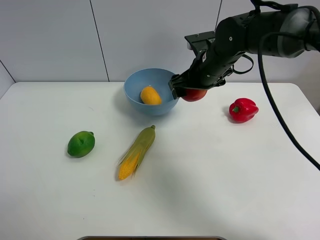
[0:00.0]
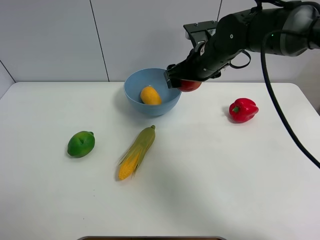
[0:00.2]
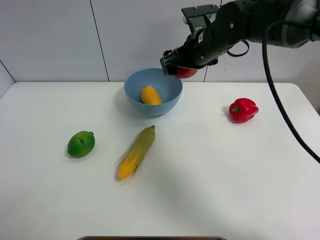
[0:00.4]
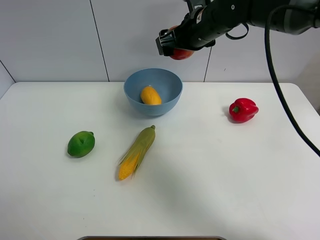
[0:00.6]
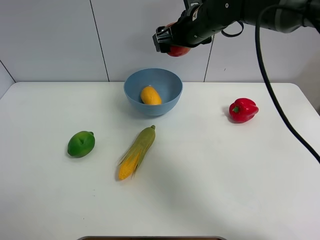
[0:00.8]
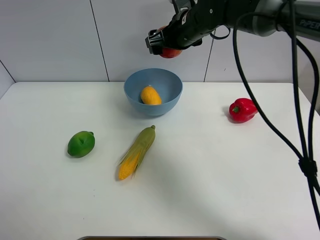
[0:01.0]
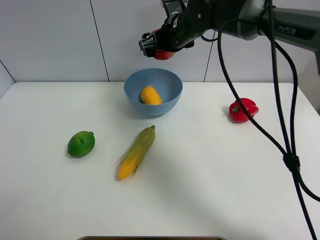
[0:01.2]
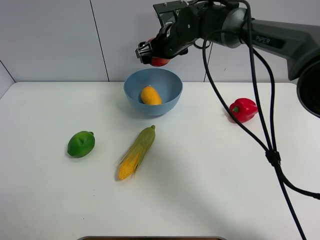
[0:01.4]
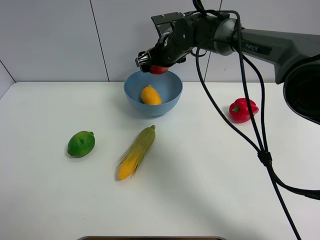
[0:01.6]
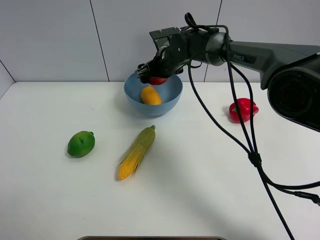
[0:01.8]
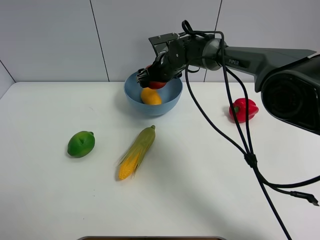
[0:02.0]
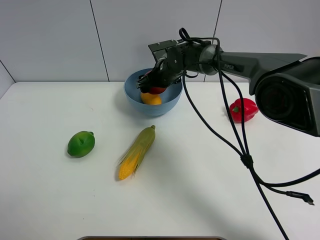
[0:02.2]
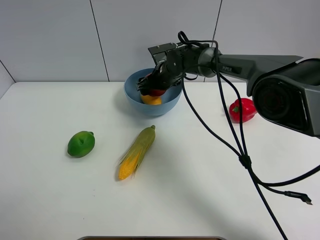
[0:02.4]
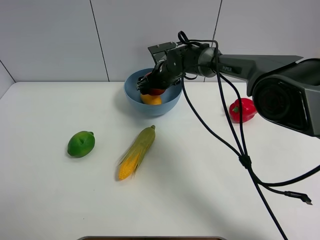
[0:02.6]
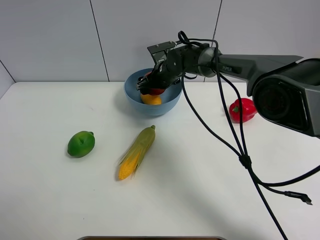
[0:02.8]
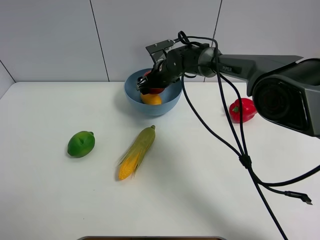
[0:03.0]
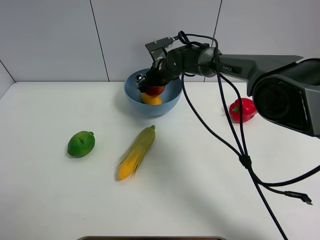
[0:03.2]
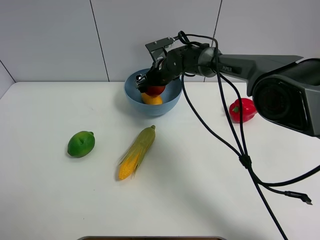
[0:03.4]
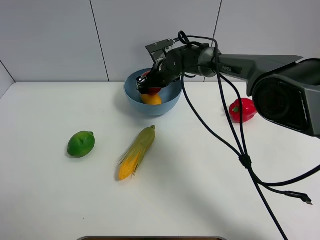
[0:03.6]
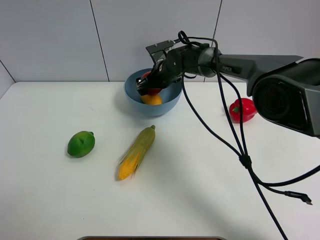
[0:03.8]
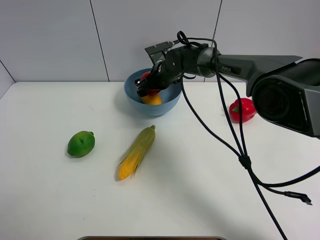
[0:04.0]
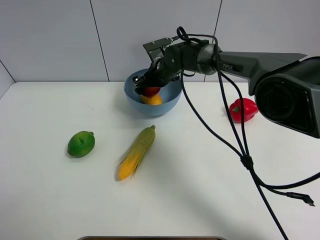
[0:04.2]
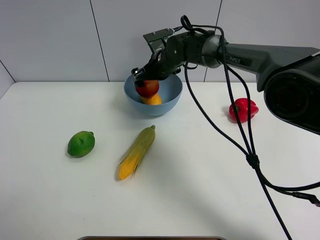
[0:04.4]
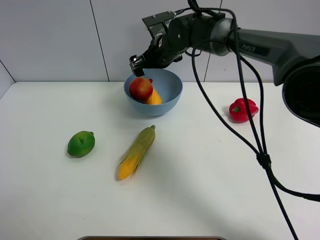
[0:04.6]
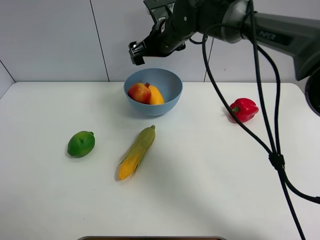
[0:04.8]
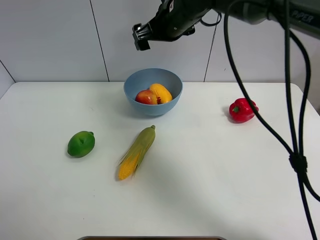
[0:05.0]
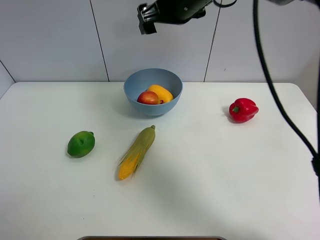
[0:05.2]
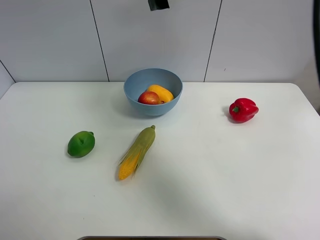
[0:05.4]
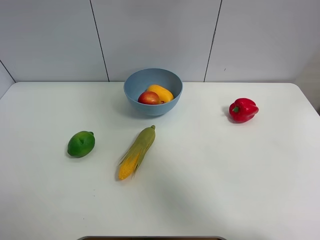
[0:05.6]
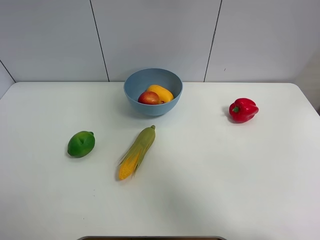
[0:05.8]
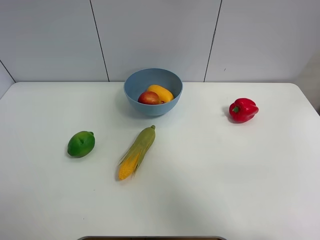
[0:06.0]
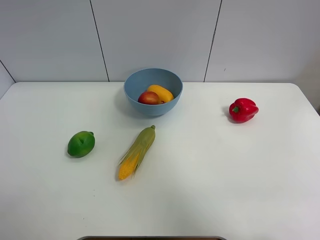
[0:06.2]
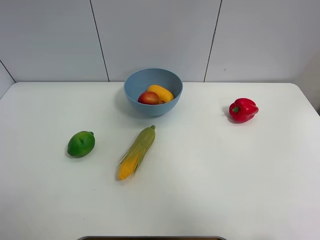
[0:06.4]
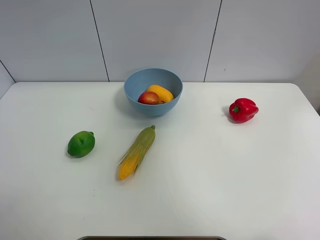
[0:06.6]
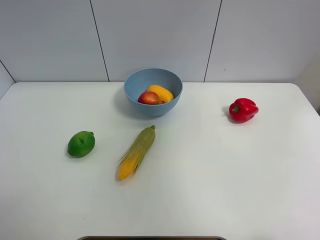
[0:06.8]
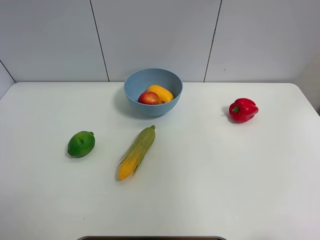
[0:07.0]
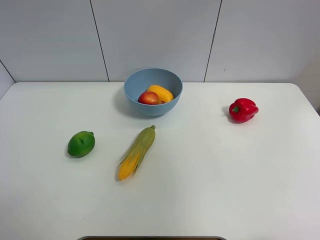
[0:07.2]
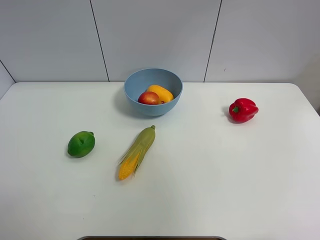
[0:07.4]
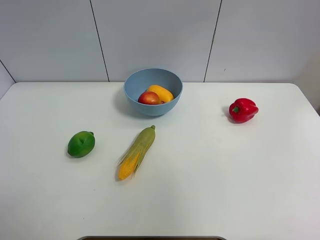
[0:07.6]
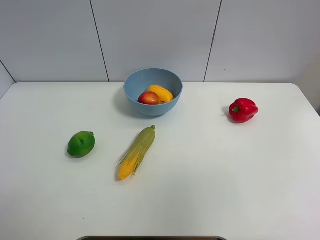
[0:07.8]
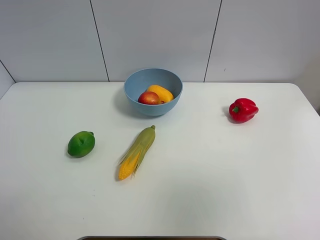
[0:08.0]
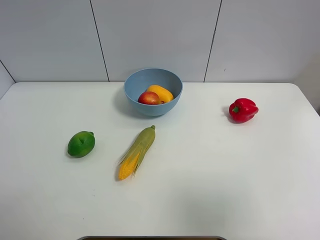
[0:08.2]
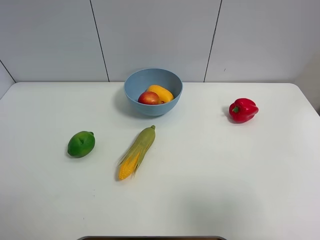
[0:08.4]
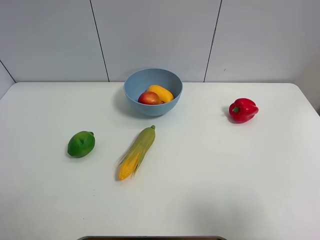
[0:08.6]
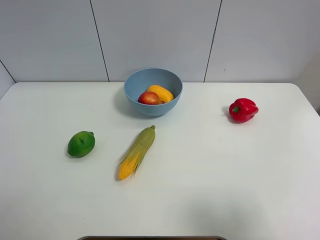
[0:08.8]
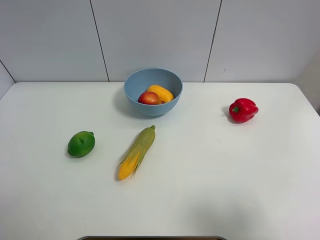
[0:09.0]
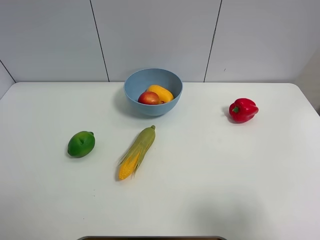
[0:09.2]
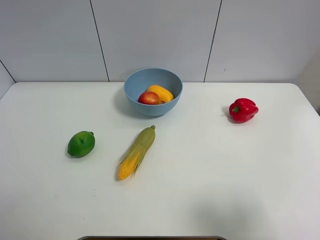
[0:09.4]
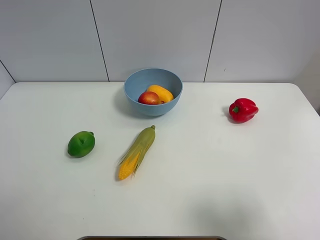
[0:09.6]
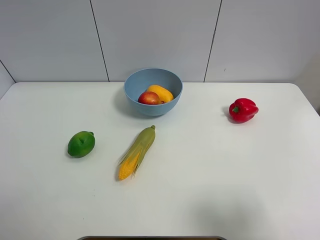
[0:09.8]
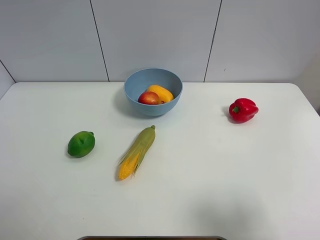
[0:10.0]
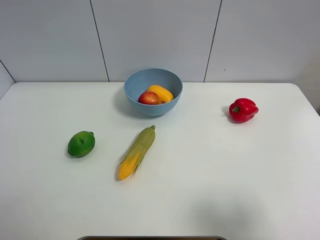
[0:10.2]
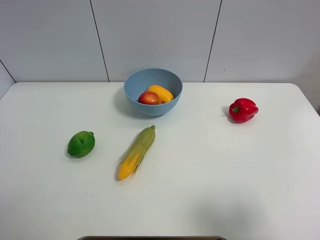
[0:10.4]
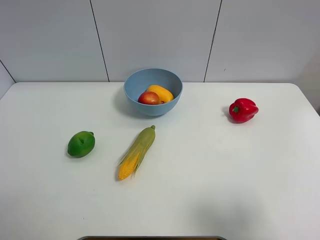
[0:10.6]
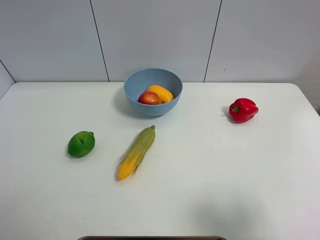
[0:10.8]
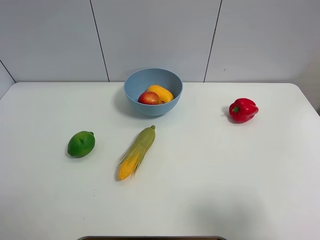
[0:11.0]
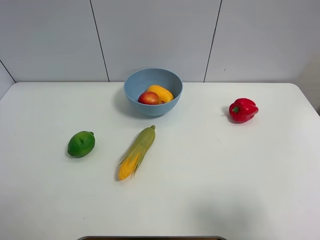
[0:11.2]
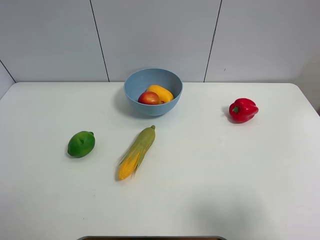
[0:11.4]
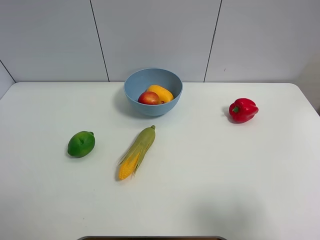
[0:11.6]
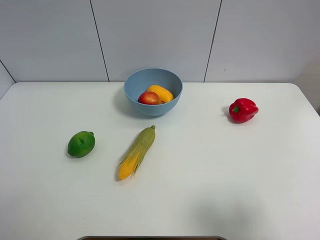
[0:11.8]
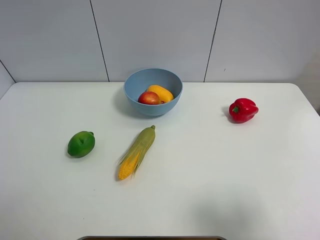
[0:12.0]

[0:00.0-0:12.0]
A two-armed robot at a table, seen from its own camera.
Task of the whole recording: Put the three fruits on the table into a bowl.
Step, 0:00.0 to 0:04.6: Place the pomegranate in the blue bowl with right gripper.
0:00.0 to 0:01.6: The right gripper travels forward and to the left by roughly 10 cm.
0:01.6 to 0:03.0: The right gripper is displaced downward by about 5 cm.
0:03.0 to 0:04.4: The grippers stay close to where they were, moving slightly.
0:04.4 to 0:06.0: The right gripper heads upward, to the right and backward, covering approximately 40 cm.
0:06.0 to 0:07.6: The right gripper goes about 35 cm backward.
0:07.6 to 0:09.0: The right gripper heads downward, covering roughly 25 cm.
0:09.0 to 0:10.4: Both grippers stay put.

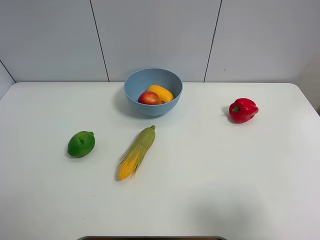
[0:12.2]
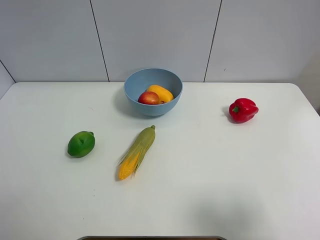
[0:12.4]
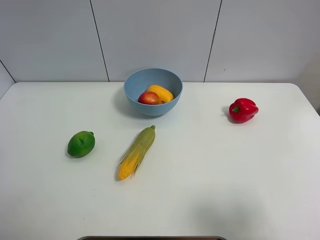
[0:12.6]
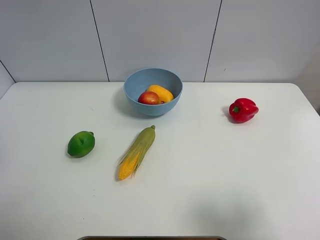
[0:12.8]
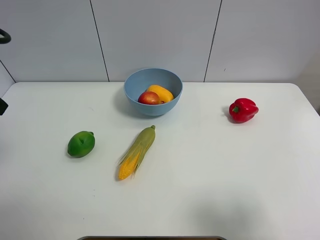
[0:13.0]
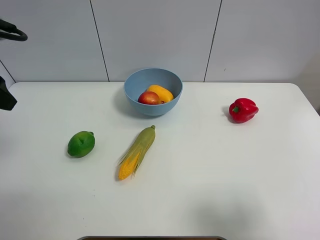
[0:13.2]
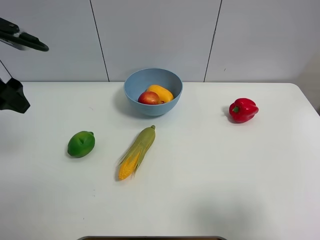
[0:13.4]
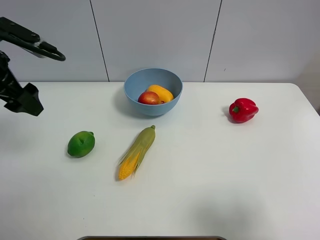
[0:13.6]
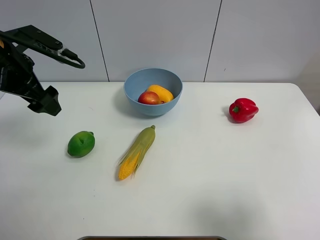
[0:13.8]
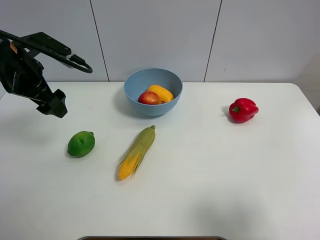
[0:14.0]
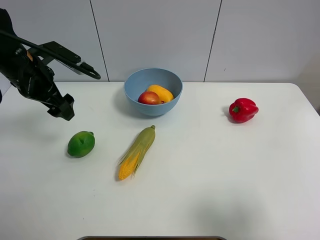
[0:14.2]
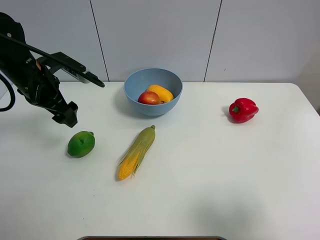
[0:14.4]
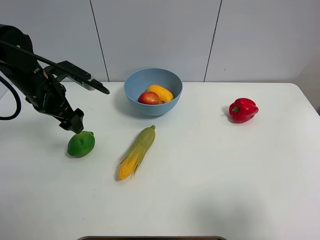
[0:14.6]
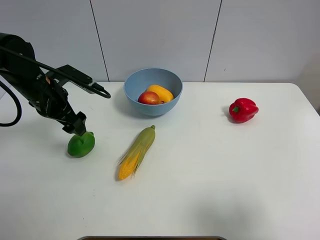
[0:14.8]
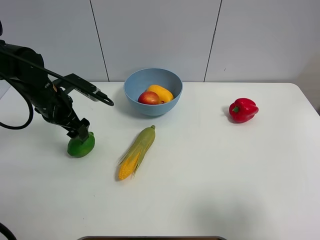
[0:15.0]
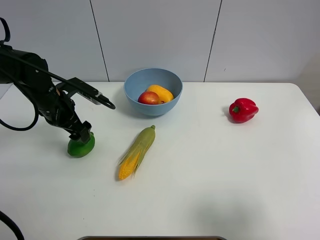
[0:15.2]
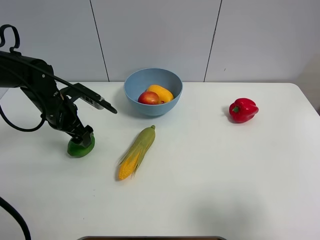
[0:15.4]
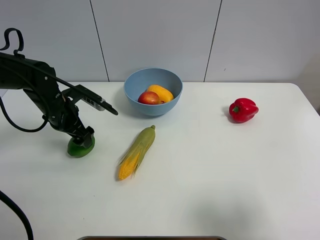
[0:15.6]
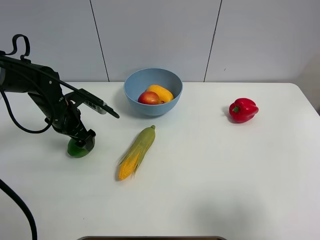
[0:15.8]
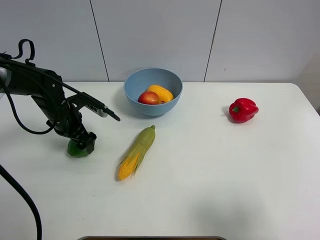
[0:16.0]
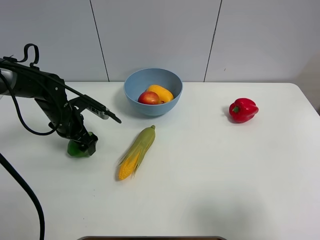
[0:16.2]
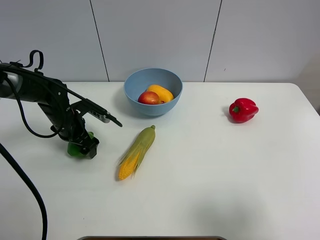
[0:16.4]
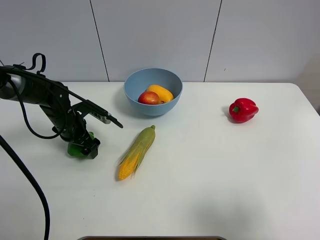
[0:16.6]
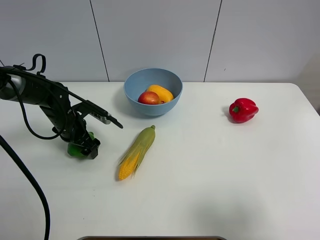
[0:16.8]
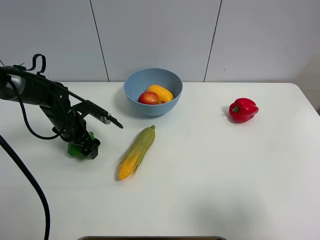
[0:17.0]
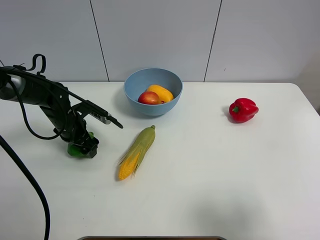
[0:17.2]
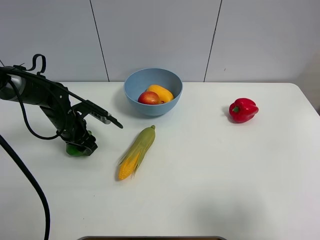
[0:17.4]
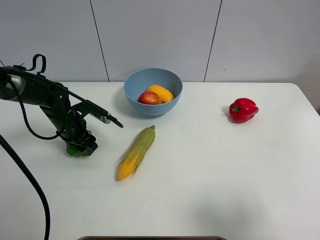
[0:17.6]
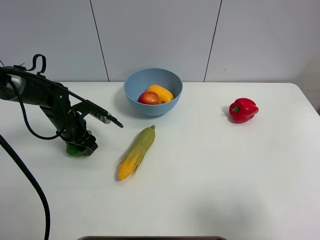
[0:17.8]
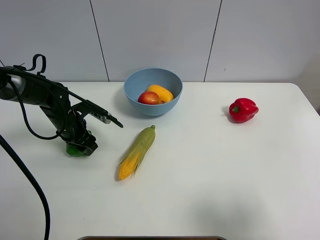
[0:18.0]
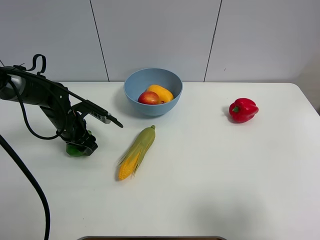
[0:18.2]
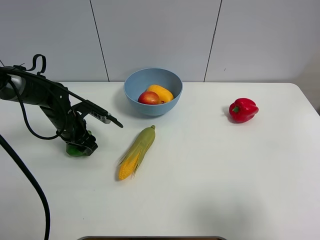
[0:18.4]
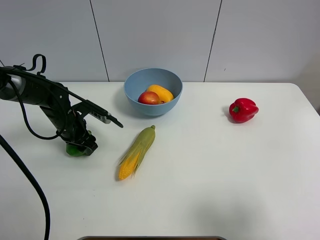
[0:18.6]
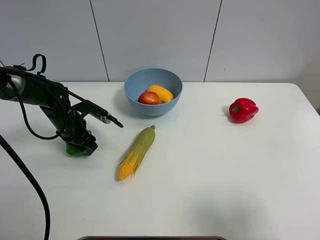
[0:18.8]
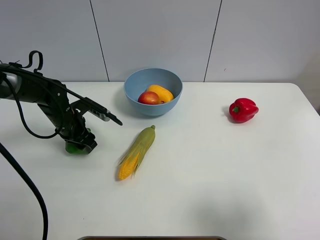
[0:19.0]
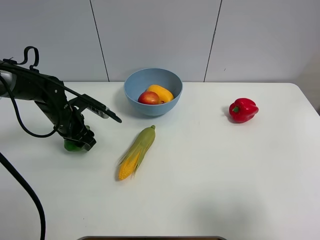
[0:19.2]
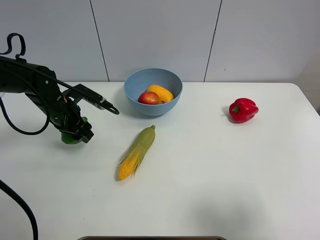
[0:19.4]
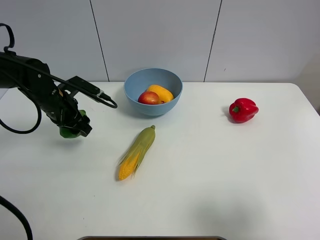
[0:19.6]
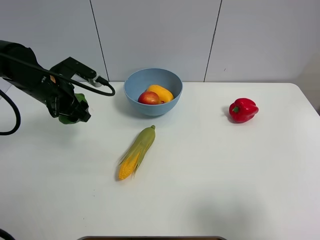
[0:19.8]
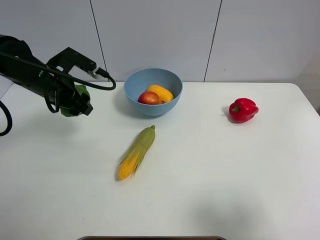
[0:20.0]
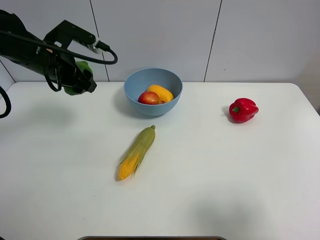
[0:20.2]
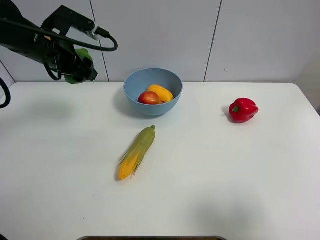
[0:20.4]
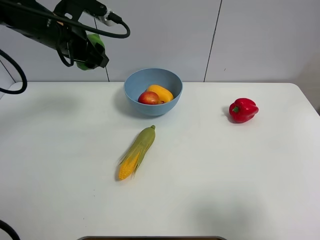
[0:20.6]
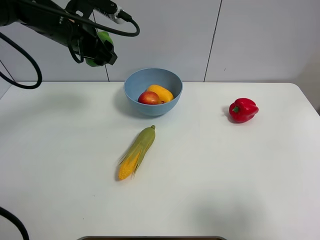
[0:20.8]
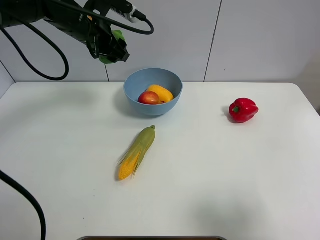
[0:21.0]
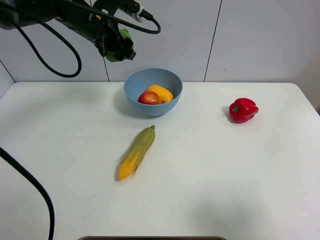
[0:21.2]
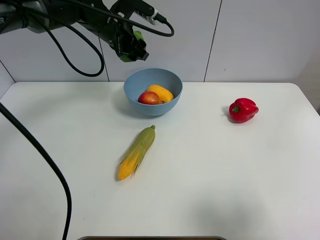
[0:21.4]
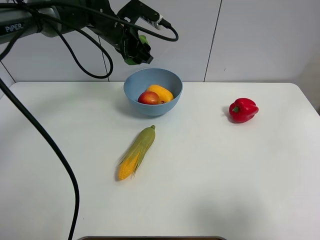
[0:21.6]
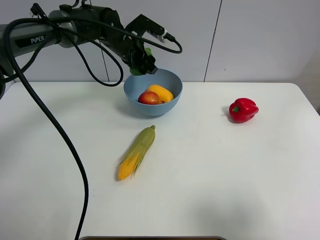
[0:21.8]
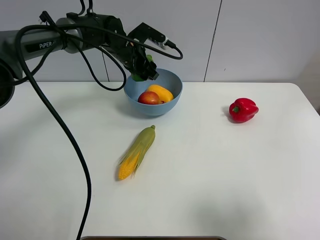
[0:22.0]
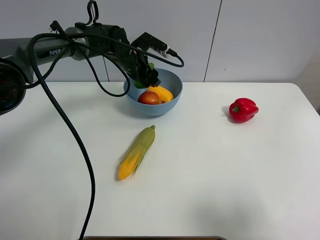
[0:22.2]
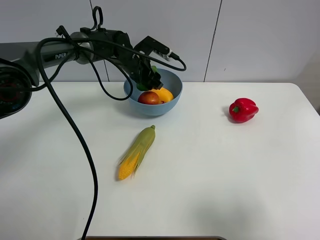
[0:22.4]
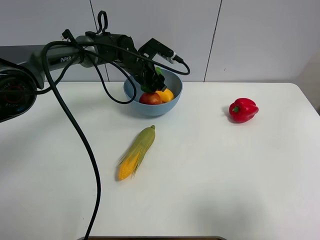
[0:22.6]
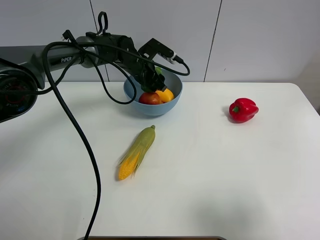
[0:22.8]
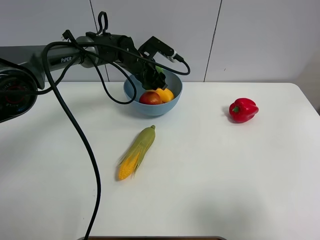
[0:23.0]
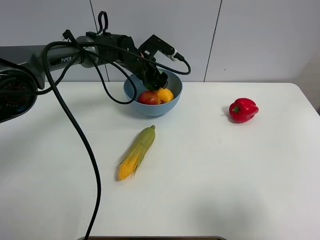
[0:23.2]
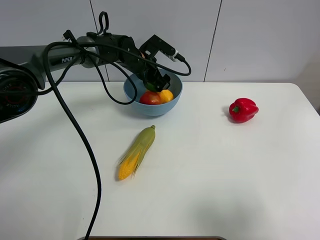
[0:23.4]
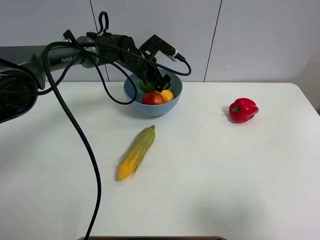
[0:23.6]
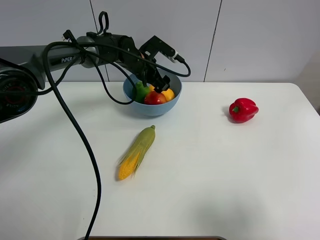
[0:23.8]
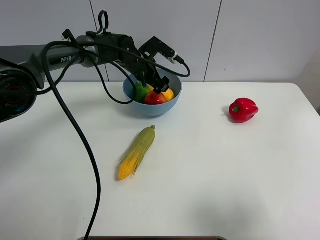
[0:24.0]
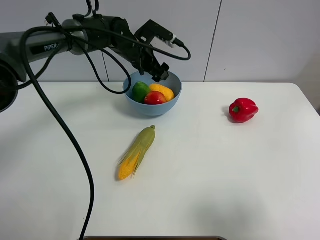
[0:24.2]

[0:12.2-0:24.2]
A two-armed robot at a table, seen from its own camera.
Task of the whole recording: Put the three fruits on the table into a bowl.
Step, 0:12.2 to 0:17.2: Grasp the green lemon with left gripper.
Step, 0:17.4 to 0:23.8: Place the green lemon in the blue bowl with left gripper.
0:12.2 to 0:13.8: The left gripper goes some 20 cm forward.
0:13.8 to 0:15.2: The left gripper heads downward, covering approximately 15 cm.
0:15.2 to 0:16.6: The left gripper shifts approximately 10 cm downward.
0:16.6 to 0:18.2: The left gripper closes its fingers.
0:18.2 to 0:19.8: The left gripper shifts some 10 cm upward.
0:19.8 to 0:21.2: The left gripper shifts approximately 15 cm to the right, forward and upward.
0:21.2 to 0:22.6: The left gripper travels downward and to the right by approximately 15 cm.
0:22.6 to 0:24.2: The left gripper moves upward, some 5 cm, and opens its fingers.
